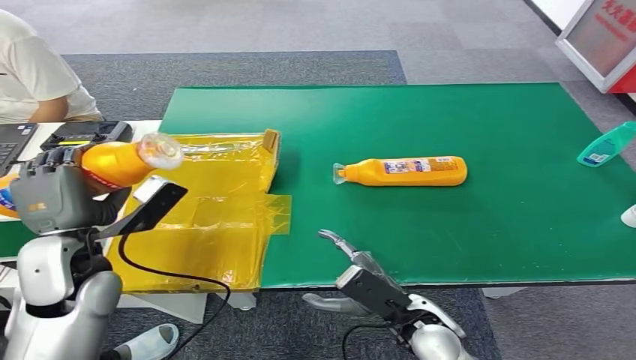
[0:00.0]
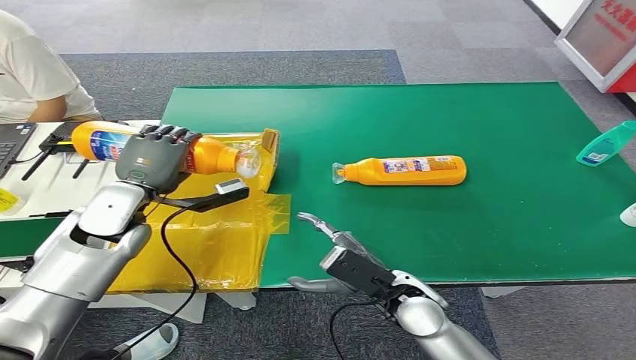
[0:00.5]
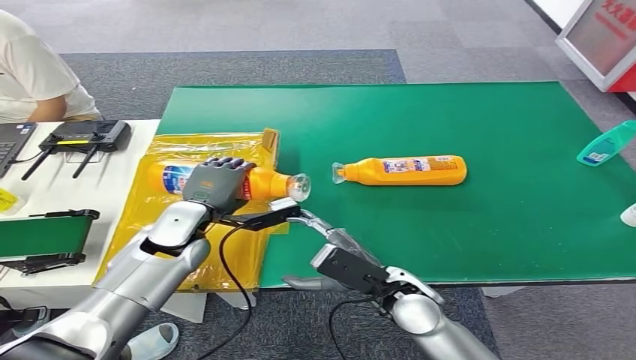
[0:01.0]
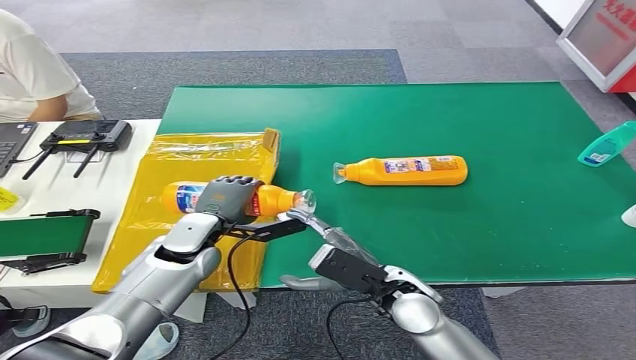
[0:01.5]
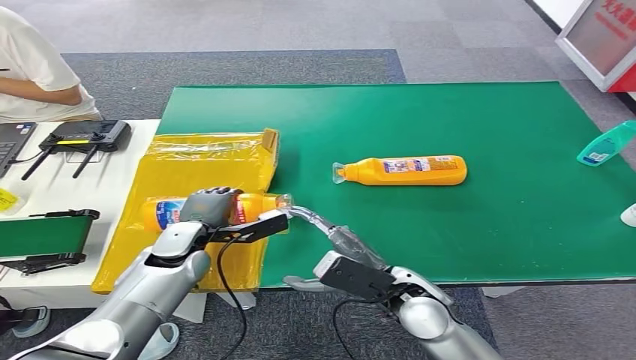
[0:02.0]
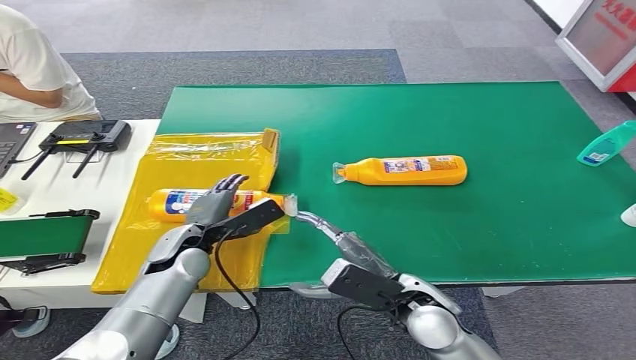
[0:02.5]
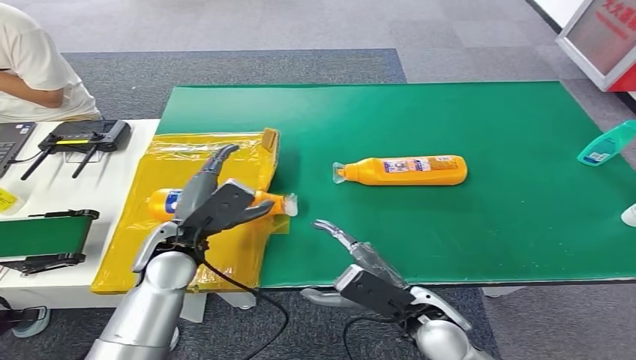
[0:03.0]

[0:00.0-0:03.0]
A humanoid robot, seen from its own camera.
Step, 0:00.0 to 0:03.0: Turn the bottle to the front side.
0:01.5 to 0:03.0: The right hand shifts by approximately 5 cm; the left hand shifts about 5 cm backward.
